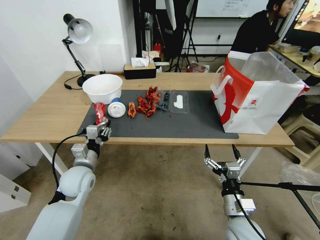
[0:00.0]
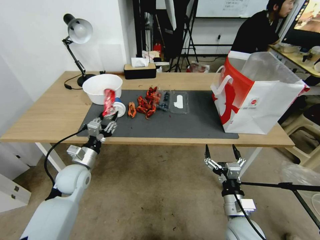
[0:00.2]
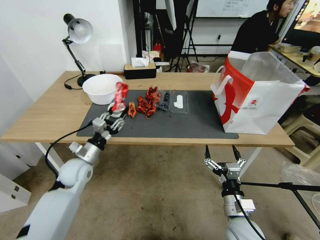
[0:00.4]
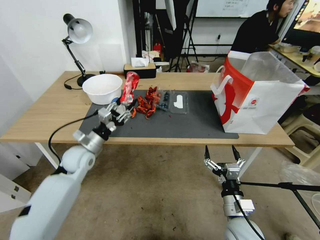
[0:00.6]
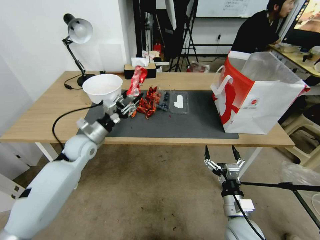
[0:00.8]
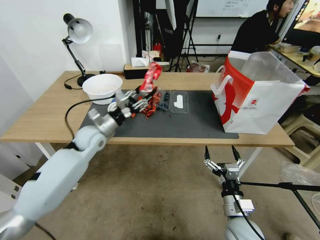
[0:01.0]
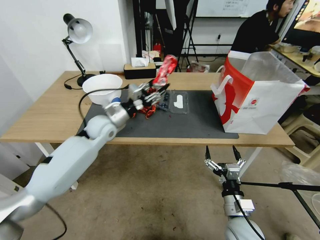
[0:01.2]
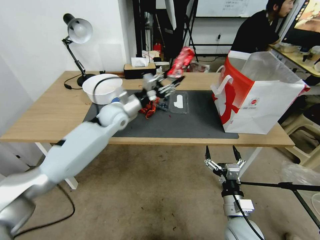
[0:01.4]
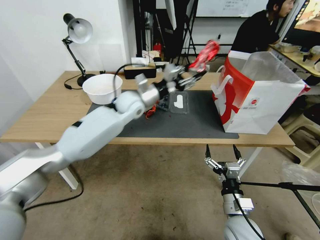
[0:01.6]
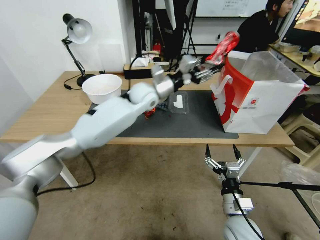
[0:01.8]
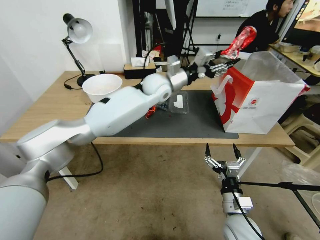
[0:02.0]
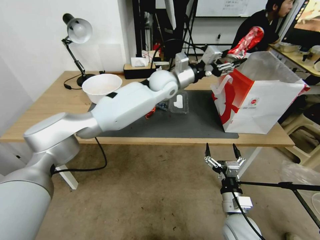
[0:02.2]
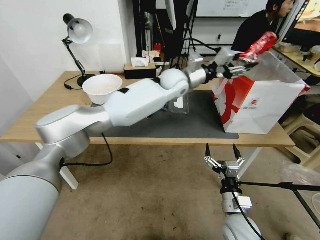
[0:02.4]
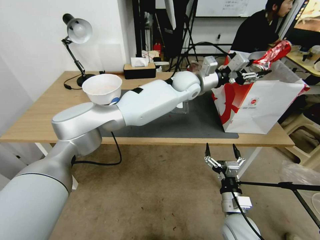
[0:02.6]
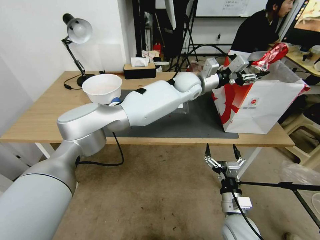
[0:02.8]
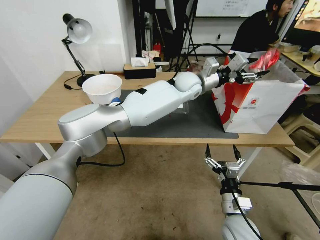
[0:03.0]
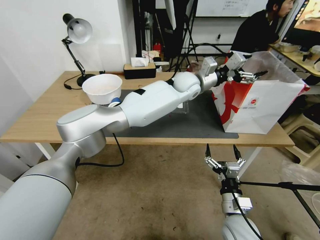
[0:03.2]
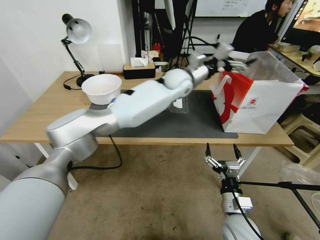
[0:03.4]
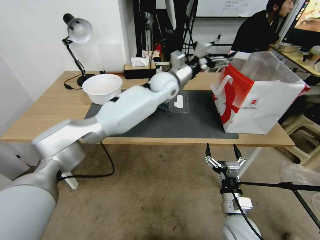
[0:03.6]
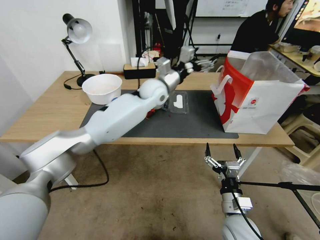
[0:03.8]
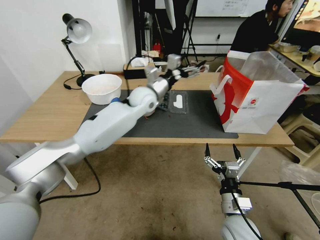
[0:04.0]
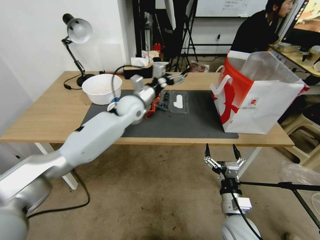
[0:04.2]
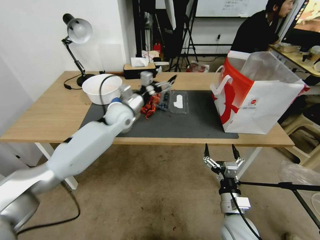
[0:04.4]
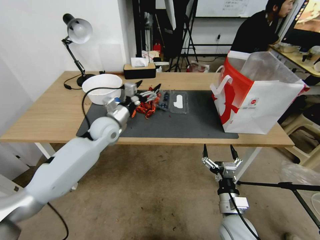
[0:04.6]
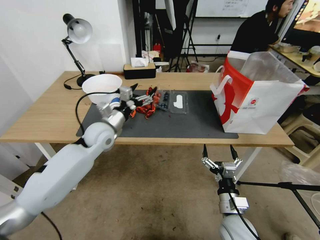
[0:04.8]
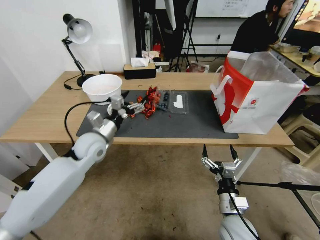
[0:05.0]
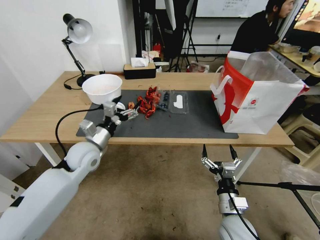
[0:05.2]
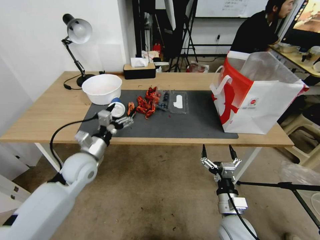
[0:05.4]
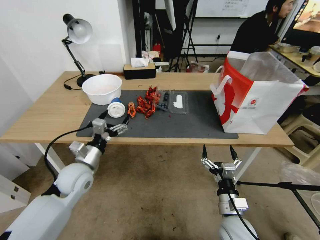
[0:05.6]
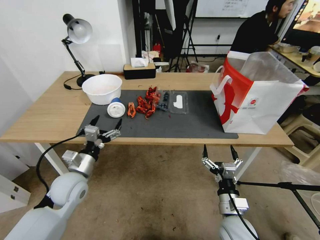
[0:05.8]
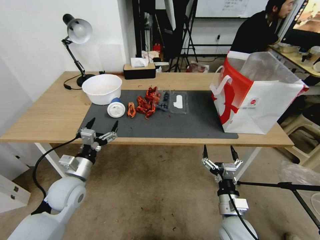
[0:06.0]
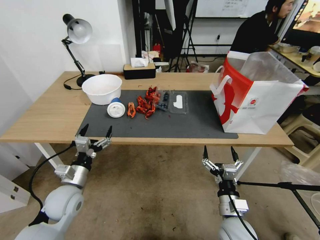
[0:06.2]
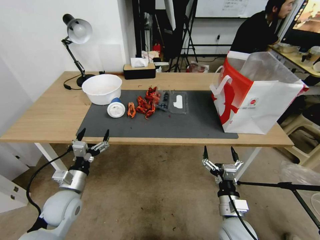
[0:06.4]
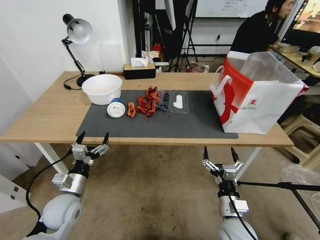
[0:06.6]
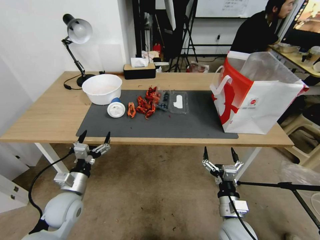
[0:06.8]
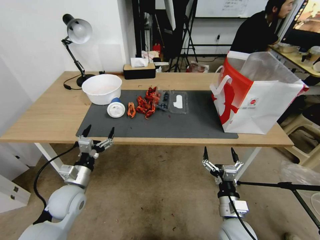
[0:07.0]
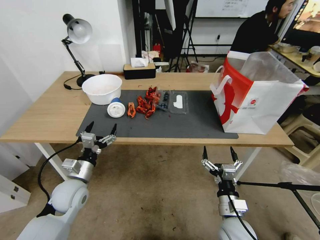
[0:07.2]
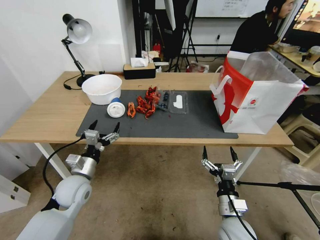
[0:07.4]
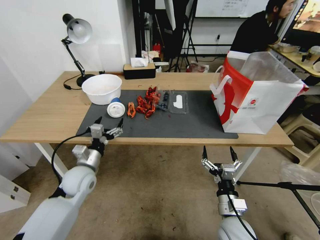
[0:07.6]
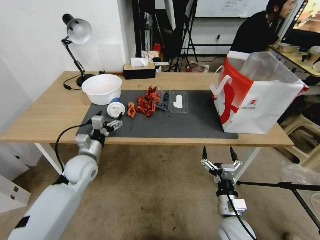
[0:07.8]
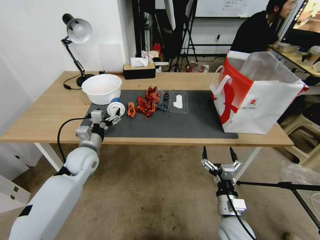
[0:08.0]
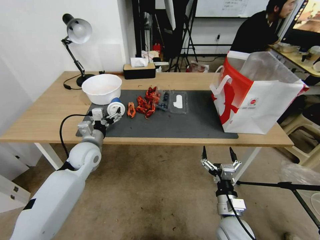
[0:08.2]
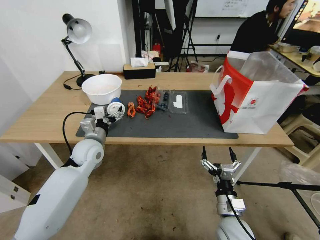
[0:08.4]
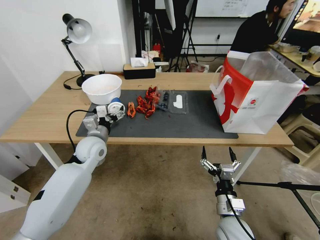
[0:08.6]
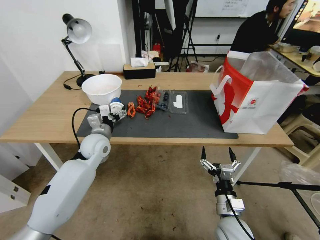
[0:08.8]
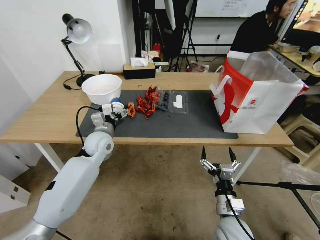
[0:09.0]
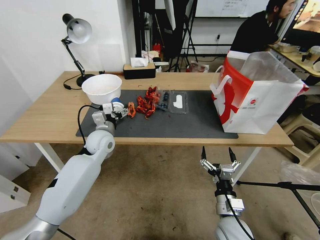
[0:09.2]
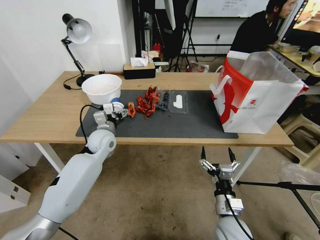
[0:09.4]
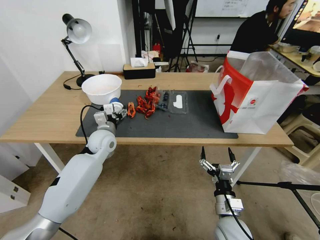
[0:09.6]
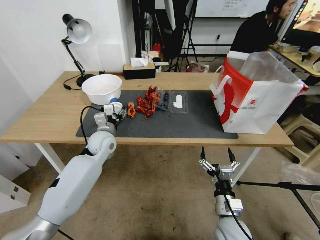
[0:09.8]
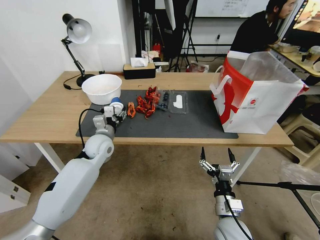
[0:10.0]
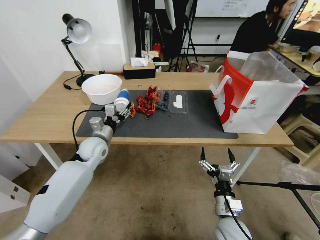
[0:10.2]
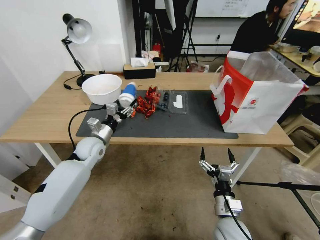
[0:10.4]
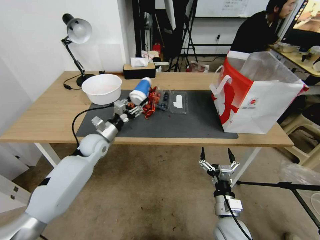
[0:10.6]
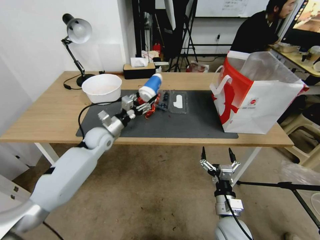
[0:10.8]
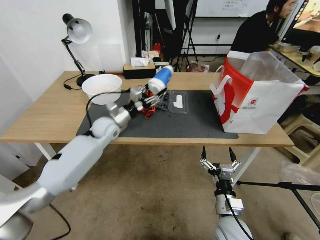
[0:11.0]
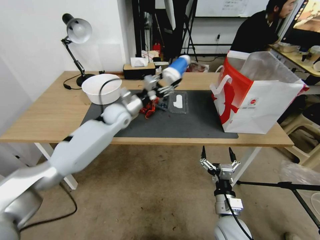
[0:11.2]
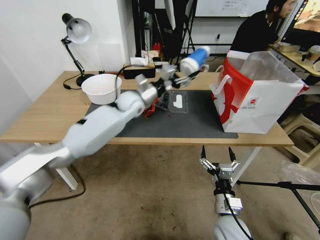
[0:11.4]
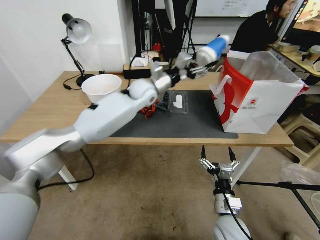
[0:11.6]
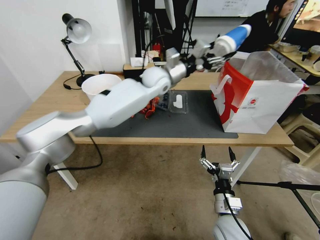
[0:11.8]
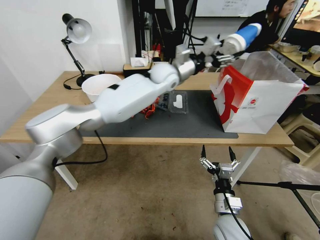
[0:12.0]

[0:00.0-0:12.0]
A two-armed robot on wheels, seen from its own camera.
0:00.0 to 0:01.6: The left gripper is displaced forward, to the right and upward by about 30 cm.
0:01.6 to 0:03.0: The left gripper shifts about 20 cm to the right.
0:03.0 to 0:04.4: The left gripper shifts some 25 cm to the left, and opens up.
0:04.4 to 0:06.0: The left gripper goes some 25 cm backward, to the left and downward.
0:06.0 to 0:07.6: The grippers stay close to where they were, moving slightly.
0:07.6 to 0:09.0: The left gripper is displaced forward and upward by approximately 15 cm.
0:09.0 to 0:10.4: The left gripper moves roughly 5 cm, and closes its fingers.
0:10.4 to 0:12.0: The left gripper is displaced to the right, upward and forward by some 40 cm.

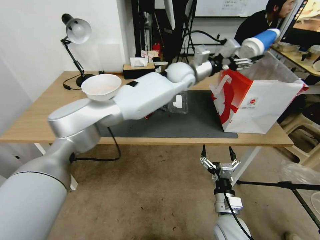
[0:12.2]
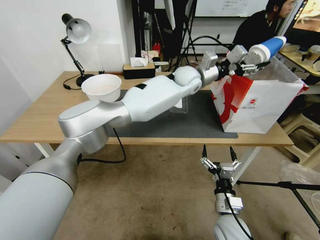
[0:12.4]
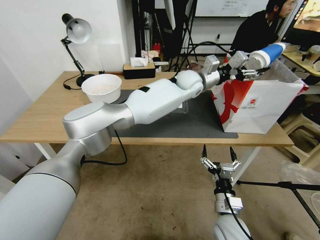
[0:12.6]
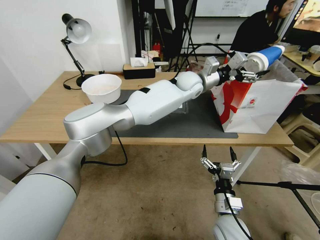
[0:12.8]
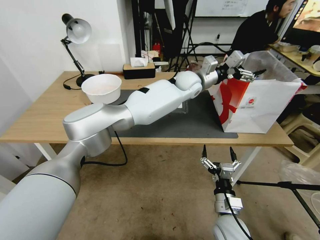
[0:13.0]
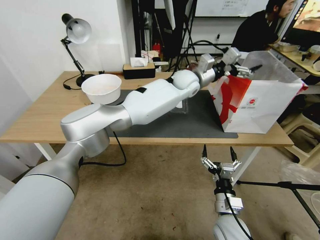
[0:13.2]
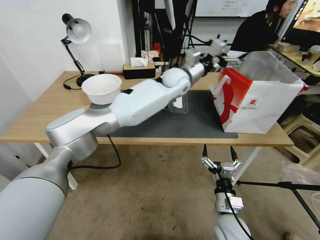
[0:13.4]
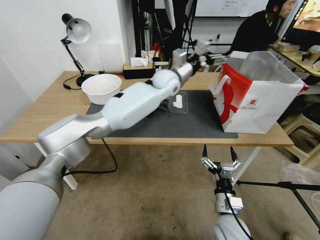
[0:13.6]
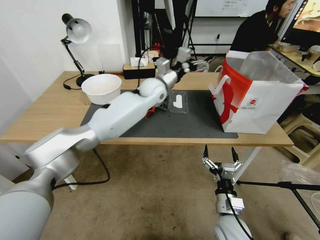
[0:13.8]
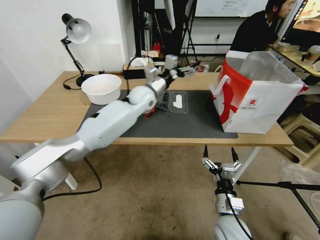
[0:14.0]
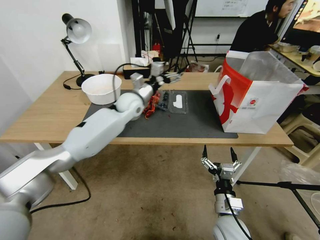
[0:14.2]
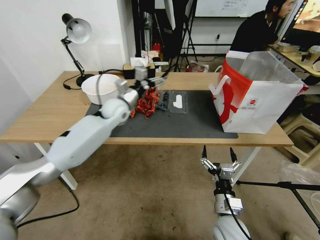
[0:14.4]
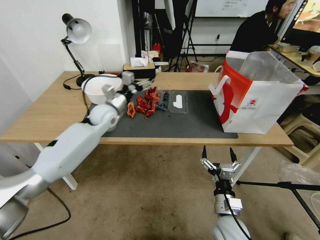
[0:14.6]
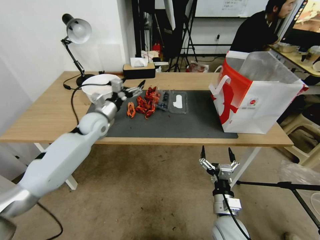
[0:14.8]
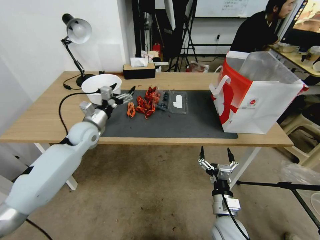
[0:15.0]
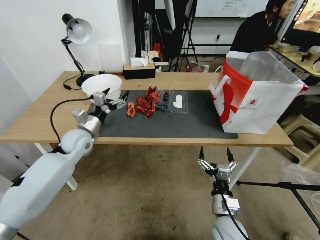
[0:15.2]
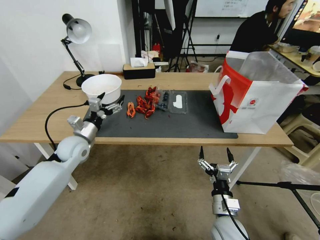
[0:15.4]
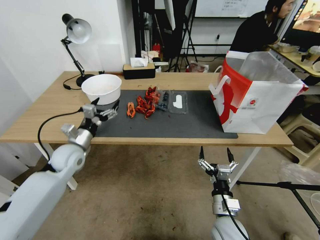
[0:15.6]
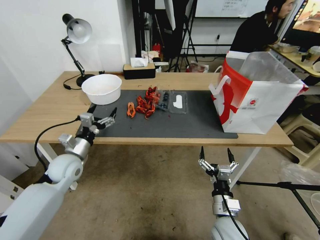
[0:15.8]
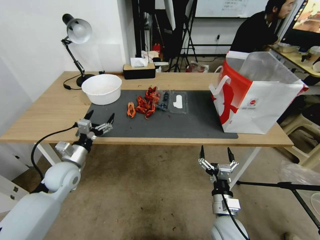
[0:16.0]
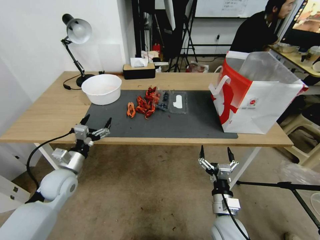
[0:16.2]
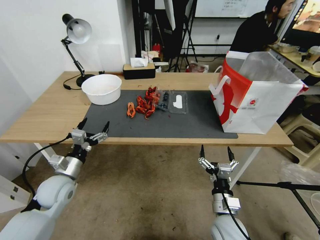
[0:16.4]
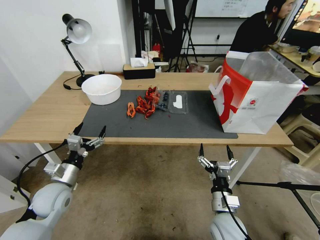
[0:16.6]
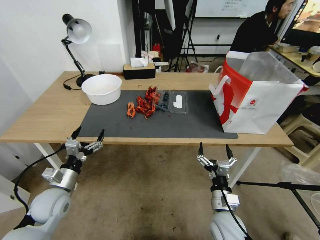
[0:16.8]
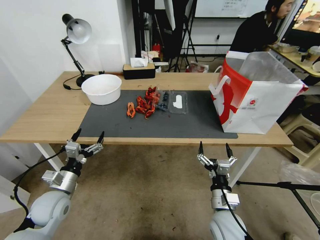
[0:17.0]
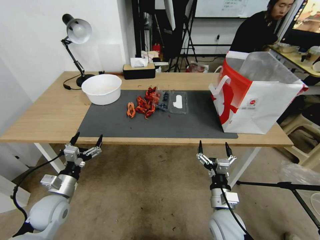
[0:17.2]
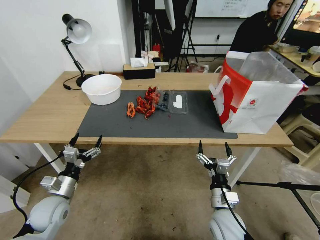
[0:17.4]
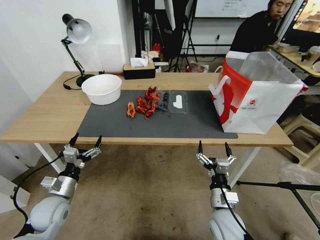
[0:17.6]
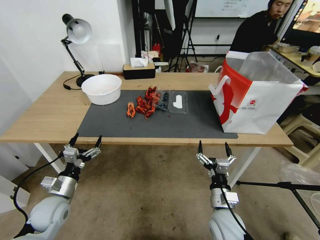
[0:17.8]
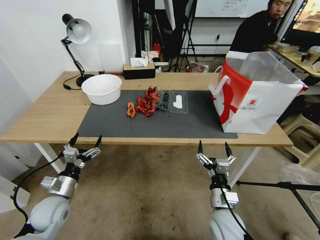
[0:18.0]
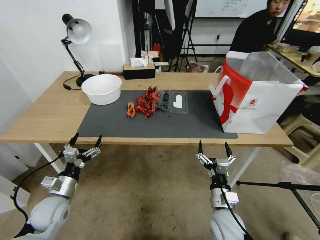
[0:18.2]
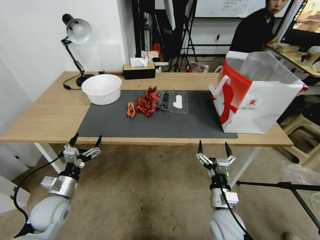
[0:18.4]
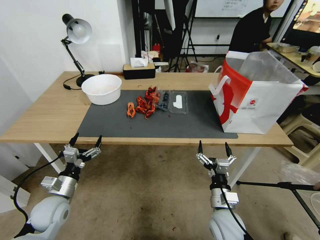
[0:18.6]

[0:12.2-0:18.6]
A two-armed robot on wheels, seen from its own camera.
0:12.2 to 0:13.8: The left gripper is displaced to the left and downward by about 10 cm, and opens its fingers.
0:13.8 to 0:15.4: The left gripper heads to the left, backward and downward, covering roughly 35 cm.
0:15.4 to 0:17.0: The left gripper shifts about 20 cm backward and downward.
0:17.0 to 0:18.6: The grippers move only a little.

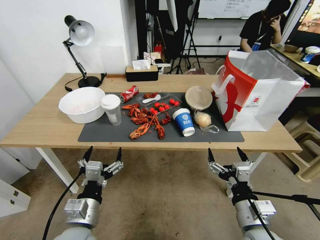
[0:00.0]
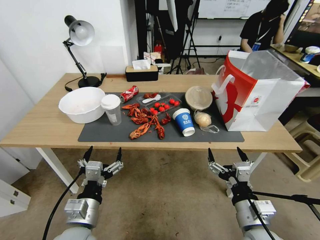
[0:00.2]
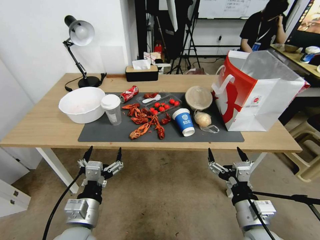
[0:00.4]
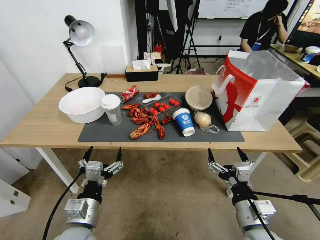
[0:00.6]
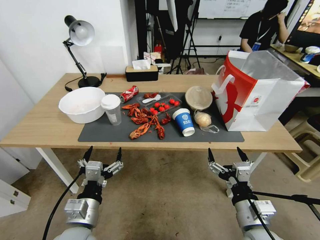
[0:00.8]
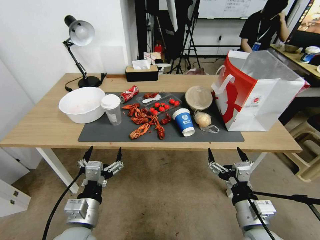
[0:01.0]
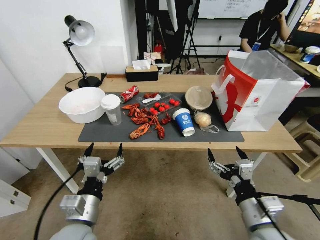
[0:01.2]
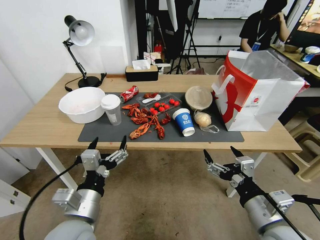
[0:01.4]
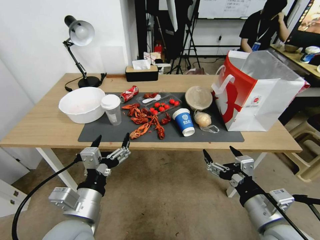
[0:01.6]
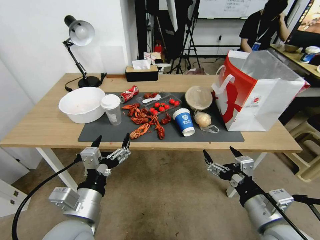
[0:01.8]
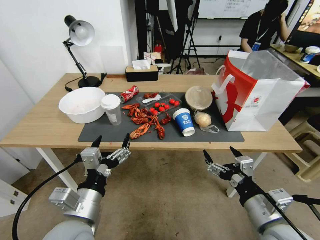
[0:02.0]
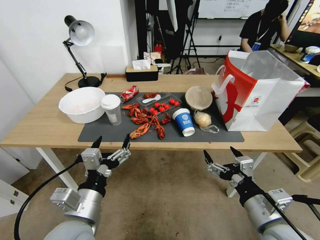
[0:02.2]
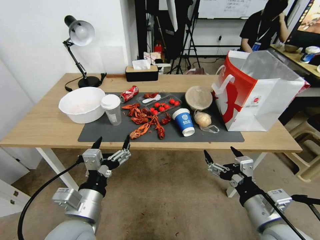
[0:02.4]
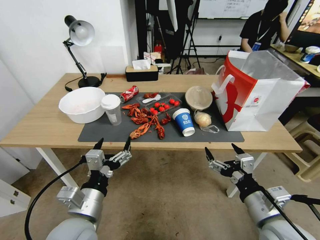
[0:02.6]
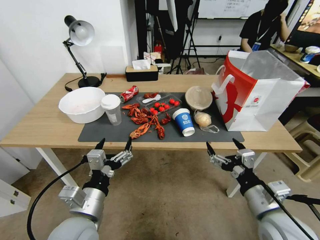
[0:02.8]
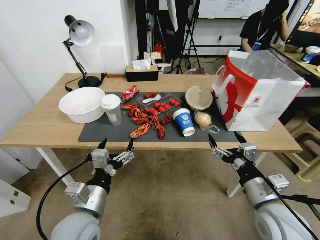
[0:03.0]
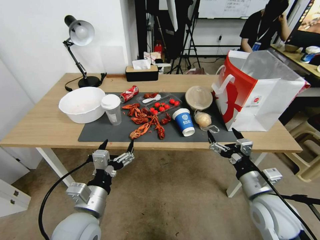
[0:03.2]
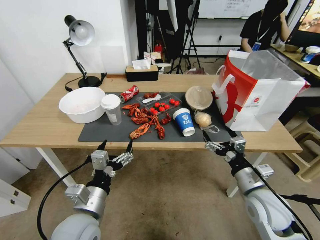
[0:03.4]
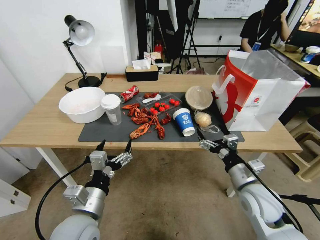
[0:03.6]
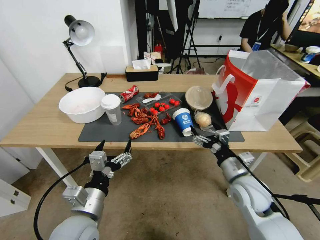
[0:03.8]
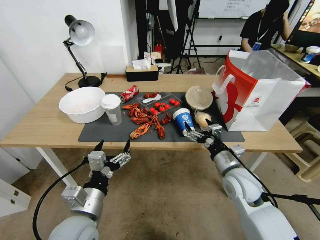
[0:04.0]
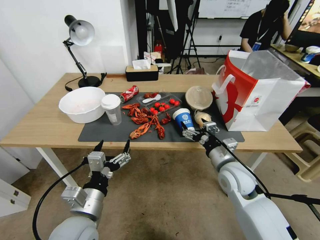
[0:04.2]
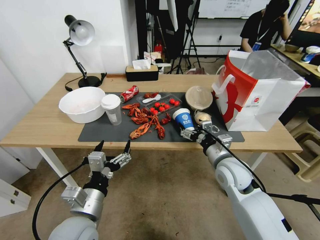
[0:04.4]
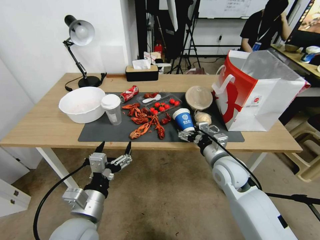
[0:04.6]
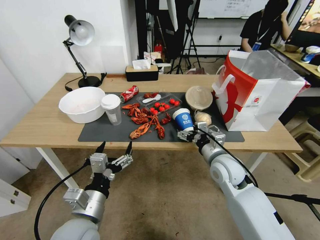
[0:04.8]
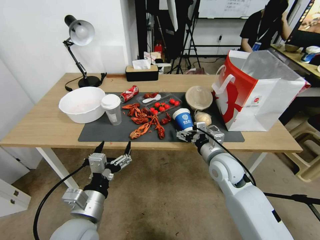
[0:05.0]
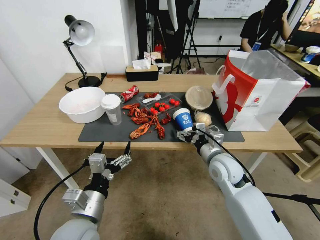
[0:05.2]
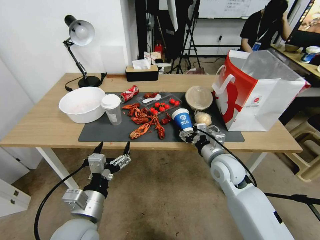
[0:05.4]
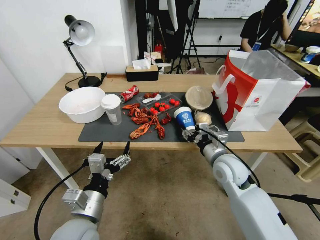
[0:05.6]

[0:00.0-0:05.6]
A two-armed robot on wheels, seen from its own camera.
0:01.4 to 0:02.8: The grippers move only a little.
0:02.8 to 0:04.2: The right gripper goes about 15 cm forward.
0:04.2 to 0:05.6: The right gripper closes its fingers.
